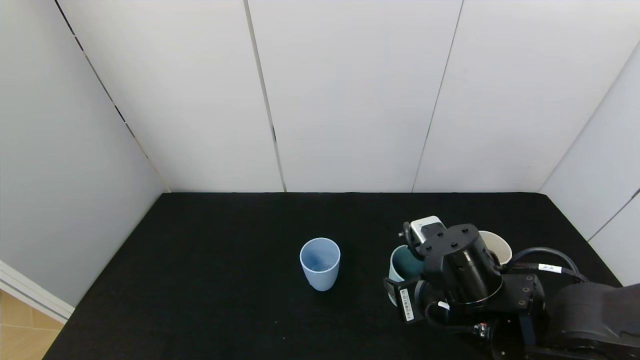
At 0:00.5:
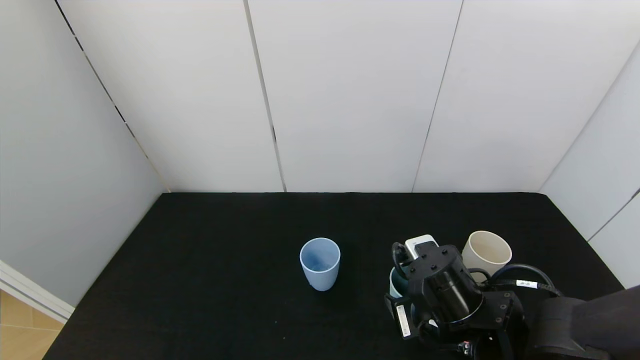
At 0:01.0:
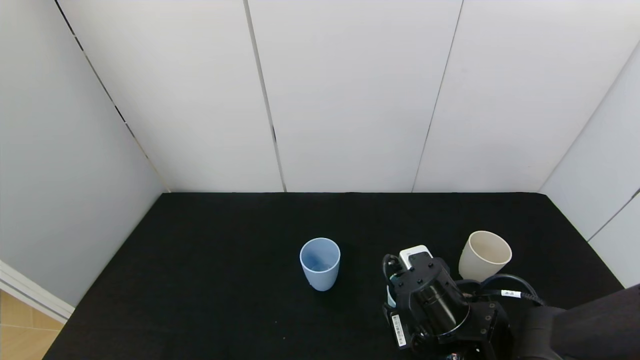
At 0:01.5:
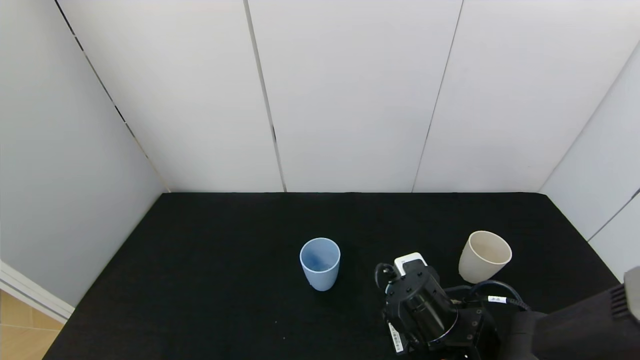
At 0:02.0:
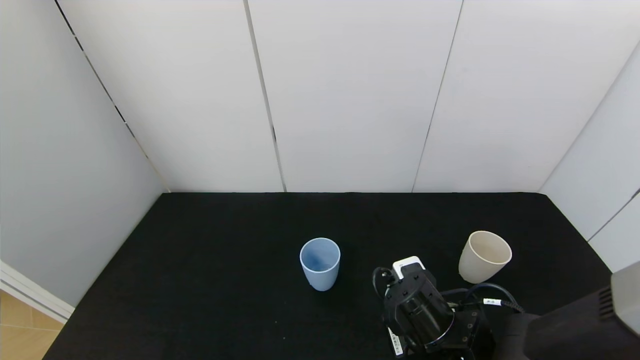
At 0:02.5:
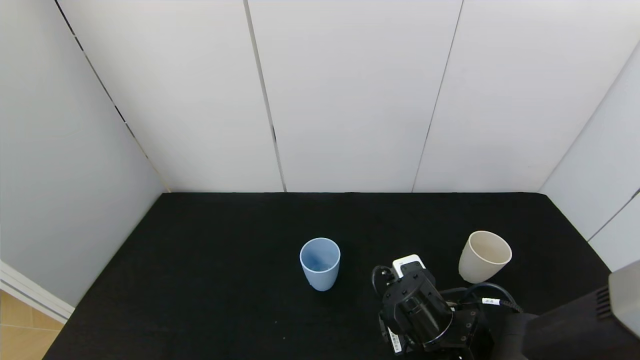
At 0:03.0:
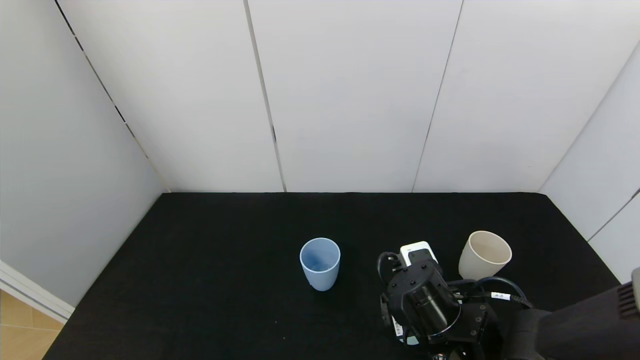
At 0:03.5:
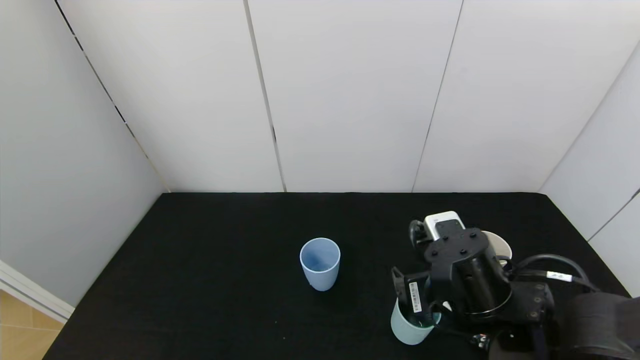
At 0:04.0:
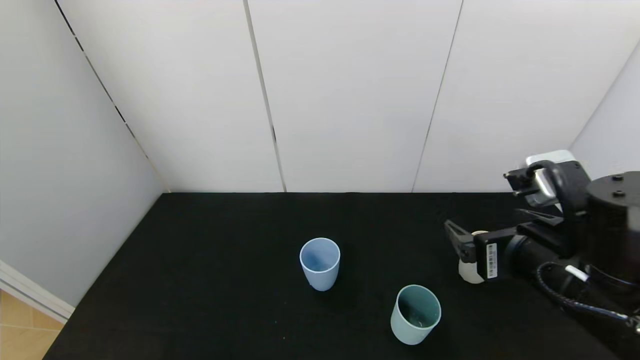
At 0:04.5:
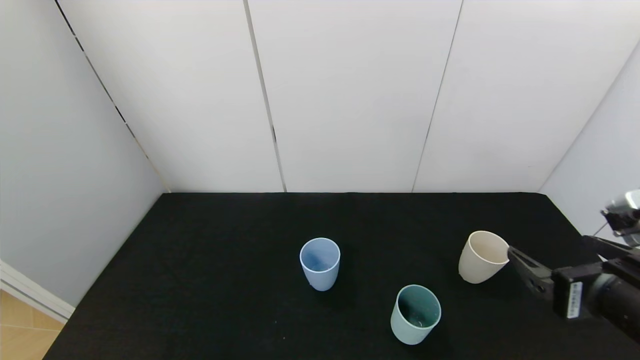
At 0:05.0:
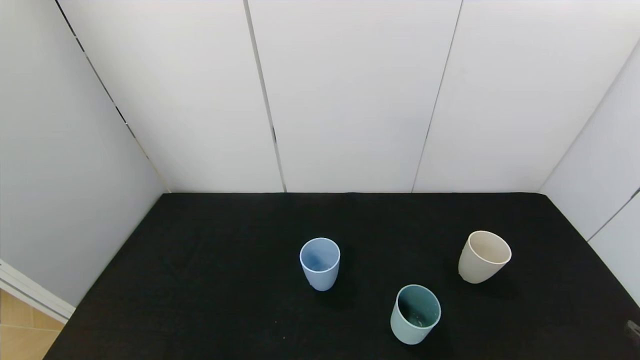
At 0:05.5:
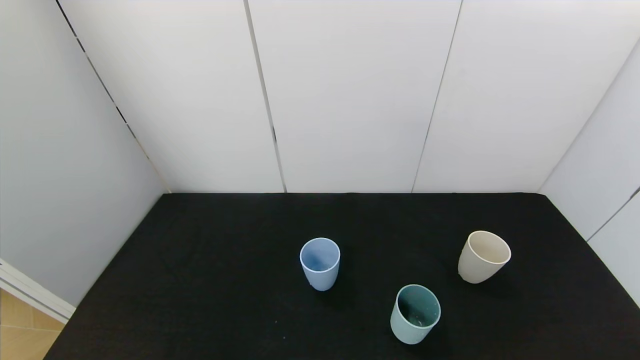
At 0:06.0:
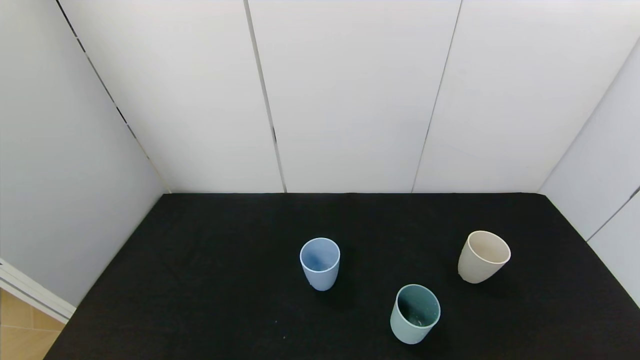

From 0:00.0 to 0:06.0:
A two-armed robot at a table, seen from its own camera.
Task of the whole recording: use the gripper to pour the water into the other two cups on black table.
Step, from 0:00.0 to 0:03.5: Place the green cup with the right gripper.
From 0:00.0 to 0:02.0: The right gripper goes some 5 cm downward.
From 0:02.0 to 0:04.0: The right gripper heads upward and to the right, covering some 15 cm, and opens up.
From 0:04.0 to 0:06.0: The right gripper goes approximately 30 cm backward, to the right and downward.
